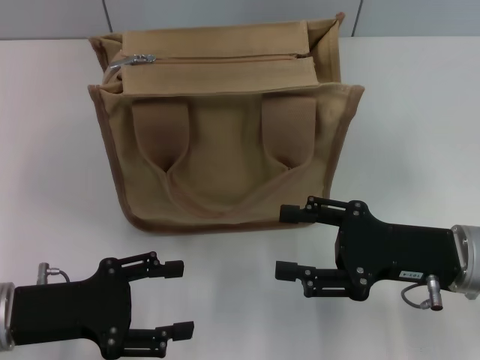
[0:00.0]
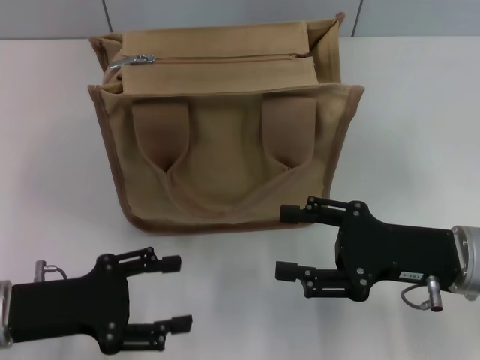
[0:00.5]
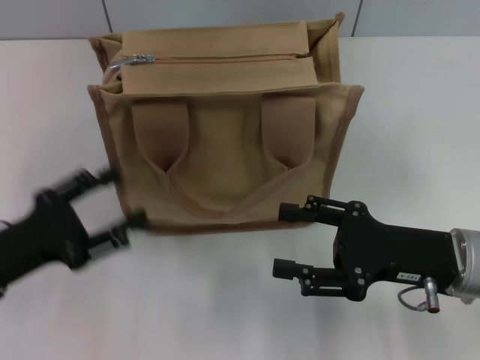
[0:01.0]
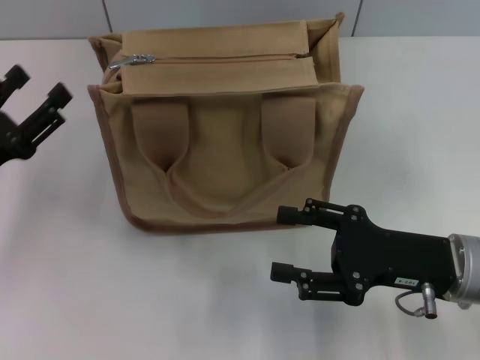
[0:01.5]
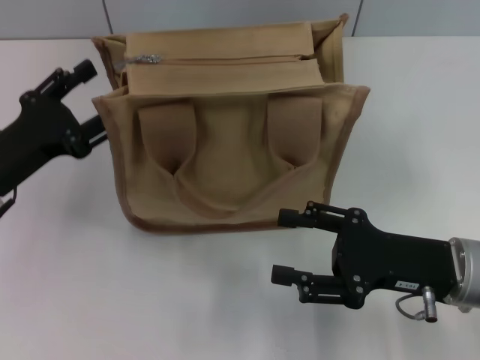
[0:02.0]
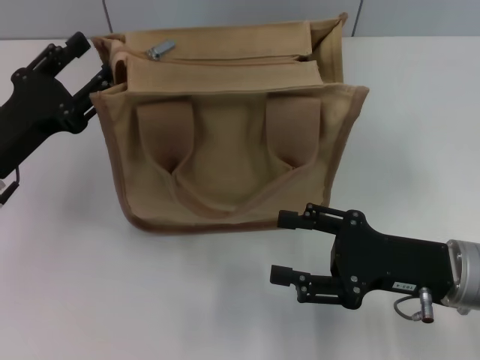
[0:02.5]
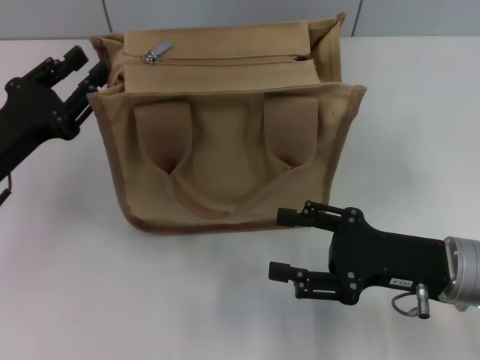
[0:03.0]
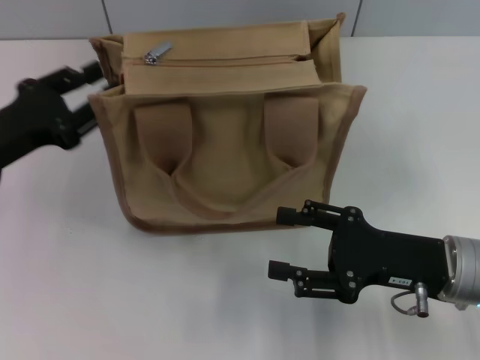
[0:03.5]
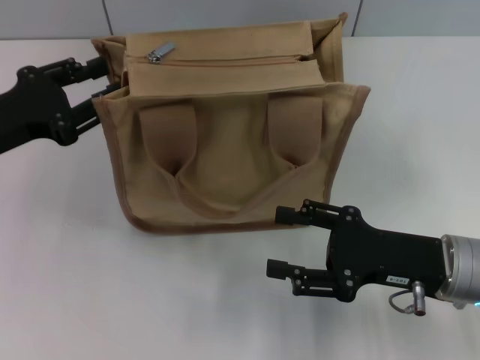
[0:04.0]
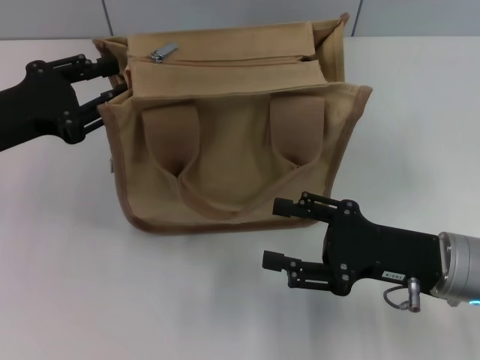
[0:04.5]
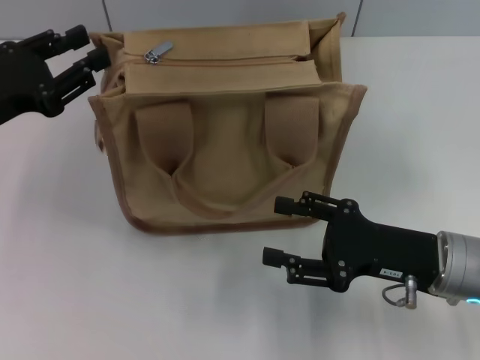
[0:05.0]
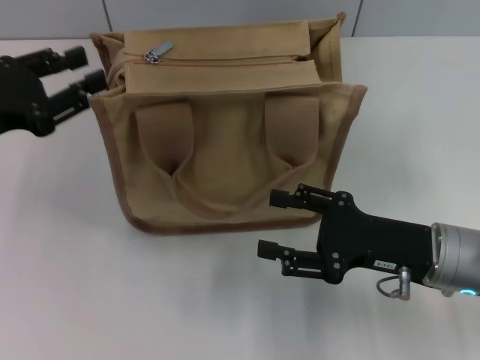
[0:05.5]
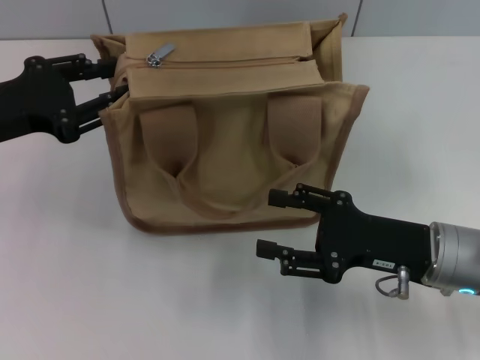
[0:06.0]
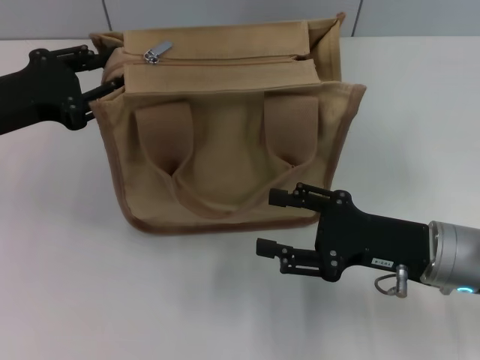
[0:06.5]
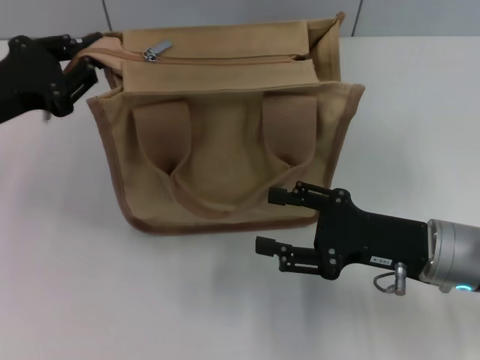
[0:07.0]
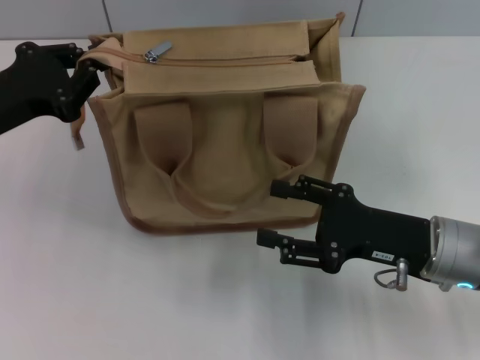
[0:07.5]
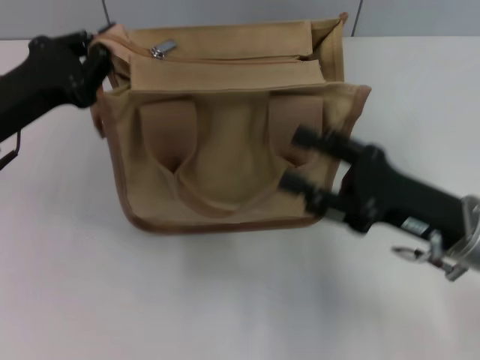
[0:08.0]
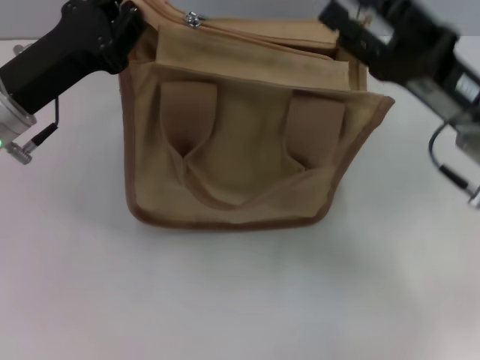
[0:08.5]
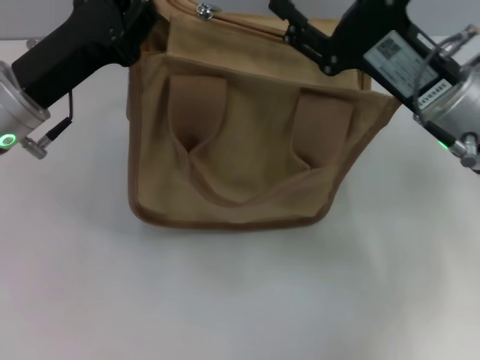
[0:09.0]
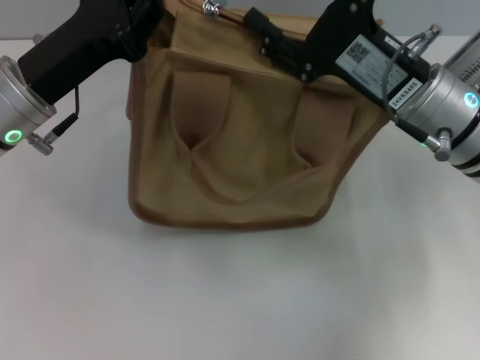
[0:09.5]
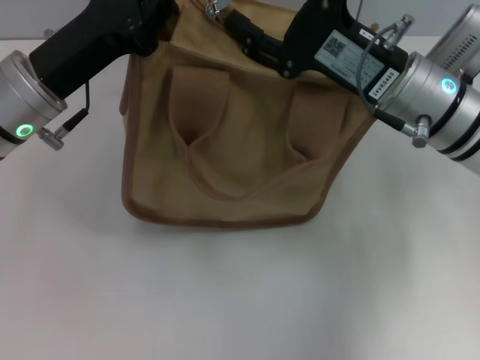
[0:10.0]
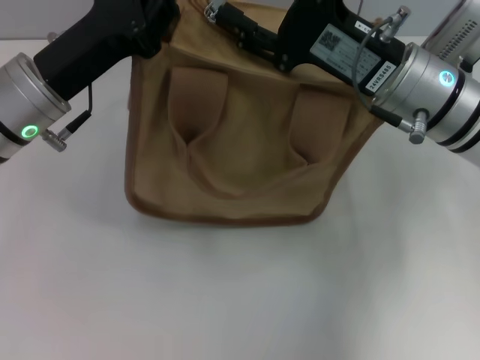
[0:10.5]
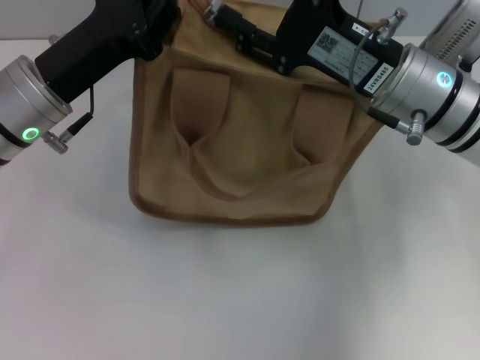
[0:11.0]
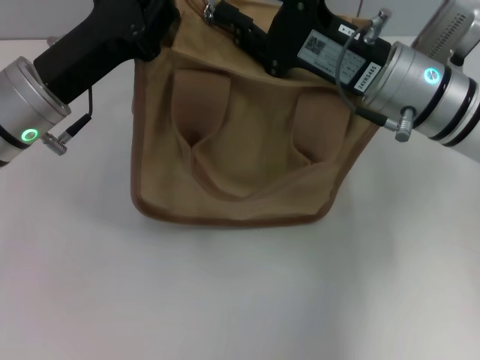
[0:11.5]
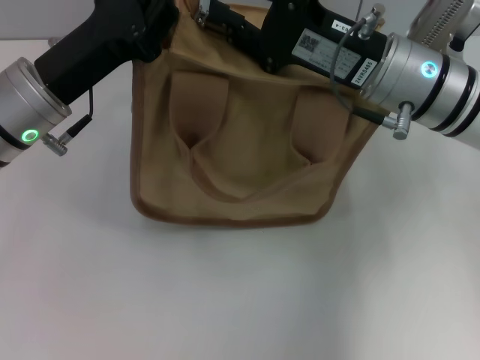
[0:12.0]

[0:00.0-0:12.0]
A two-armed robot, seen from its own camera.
0:00.0 to 0:02.0: The left gripper goes roughly 5 cm forward.
0:02.0 to 0:04.0: The left gripper moves roughly 5 cm.
0:04.0 to 0:06.0: The grippers make only small movements.
0:06.0 to 0:08.0: The left gripper closes its fingers.
0:08.0 to 0:10.0: The right gripper shifts roughly 10 cm forward, upward and to the left; the left gripper is displaced to the right by approximately 5 cm.
0:10.0 to 0:12.0: The right gripper closes.

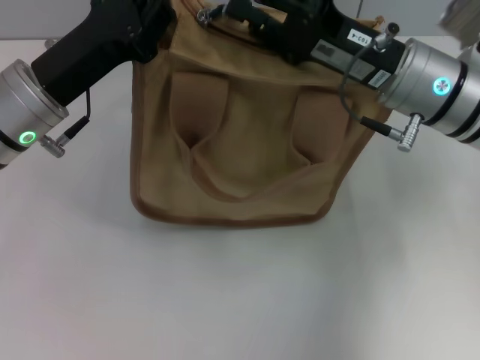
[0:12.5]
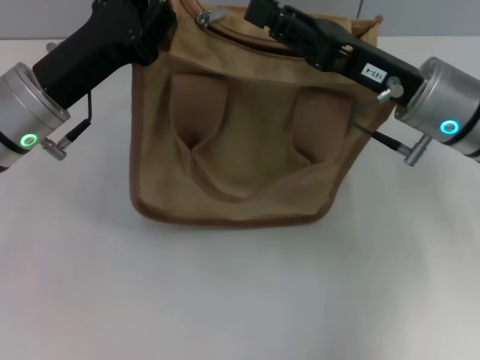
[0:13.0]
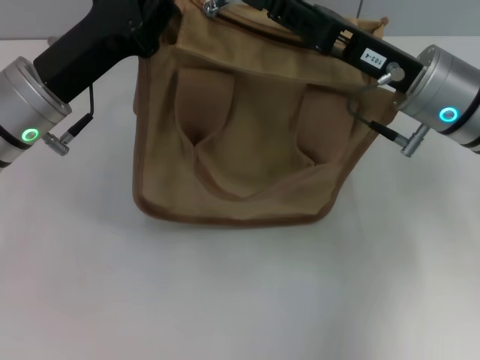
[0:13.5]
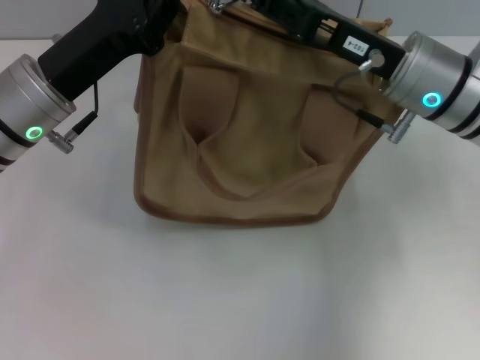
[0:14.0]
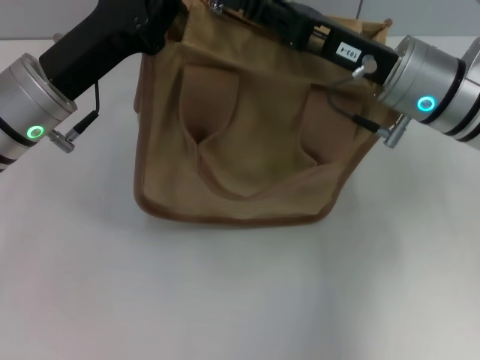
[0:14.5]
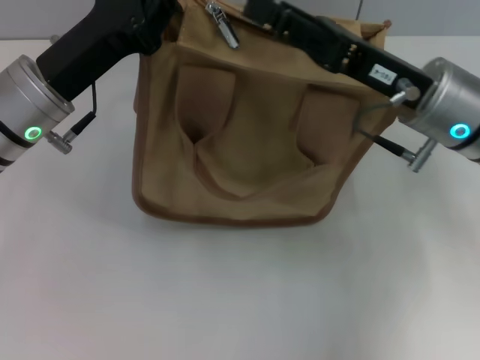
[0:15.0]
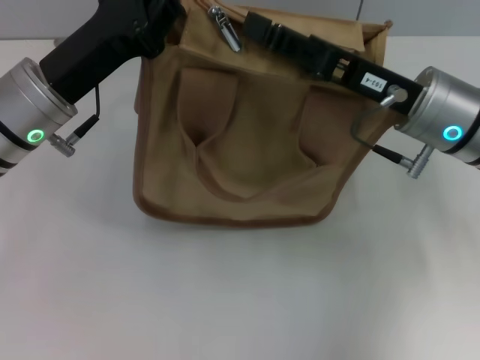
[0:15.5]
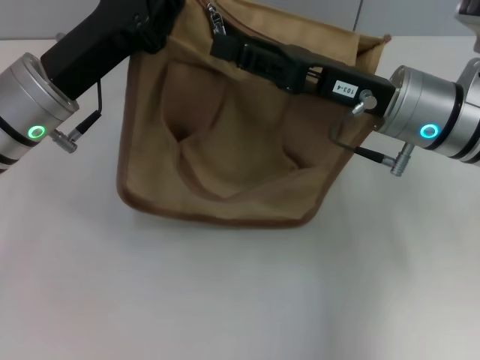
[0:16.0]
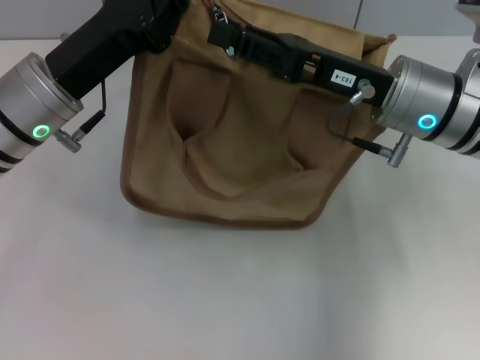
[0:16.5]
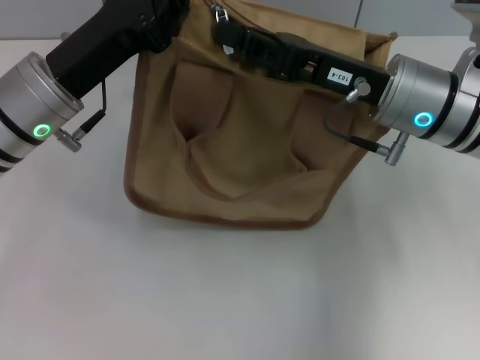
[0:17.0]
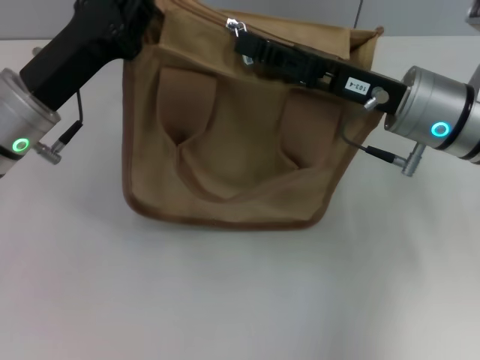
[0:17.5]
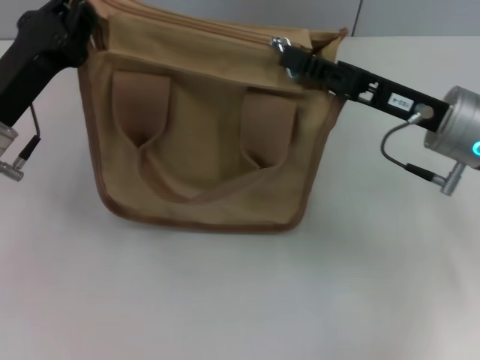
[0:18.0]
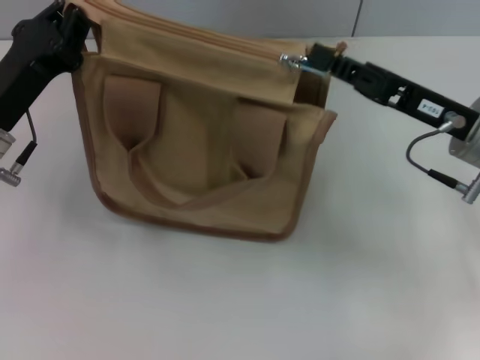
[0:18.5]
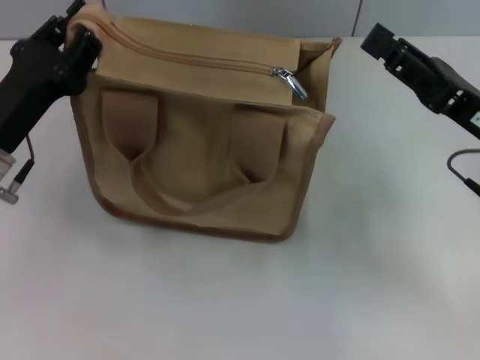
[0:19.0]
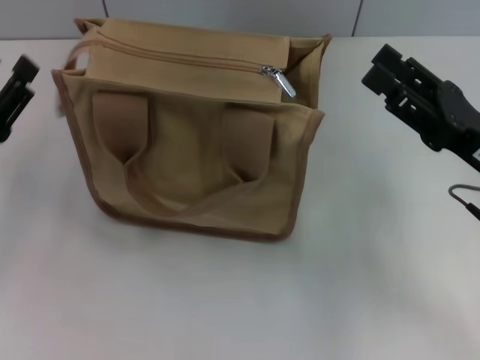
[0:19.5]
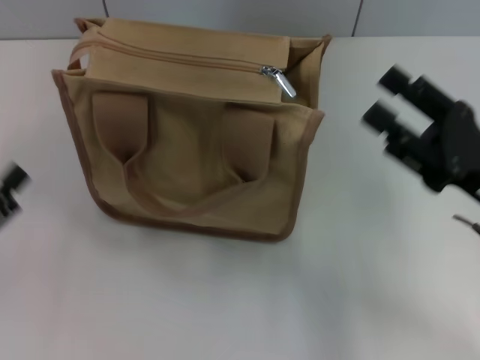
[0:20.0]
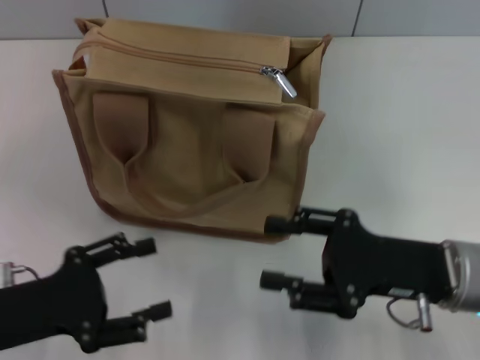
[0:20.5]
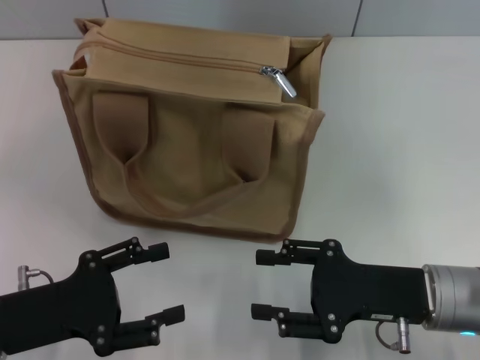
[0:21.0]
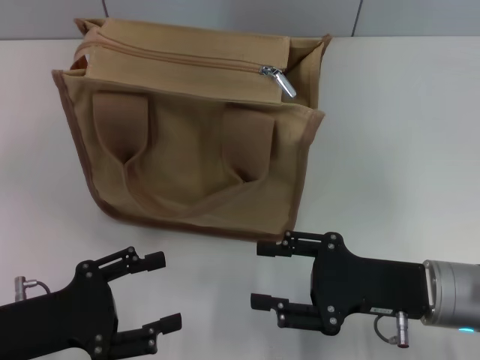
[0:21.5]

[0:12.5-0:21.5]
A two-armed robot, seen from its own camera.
Step, 0:12.5 to 0:18.5: Pull up the zipper with your right hand.
0:14.5 to 0:17.0: The right gripper closes its fingers.
0:17.0 to 0:19.5: The right gripper moves to the right and backward, roughly 15 cm, and opens. The left gripper travels to the left, backward and downward by about 15 cm, and opens.
0:19.5 to 0:21.5: The left gripper goes some 5 cm backward; the right gripper is displaced downward and to the left by about 10 cm.

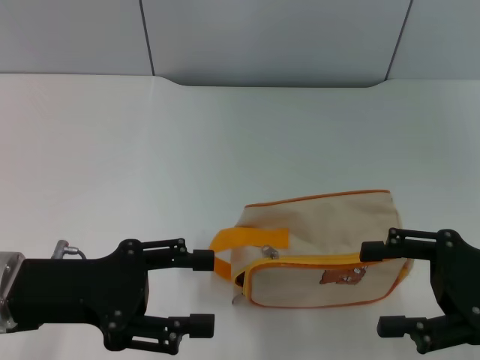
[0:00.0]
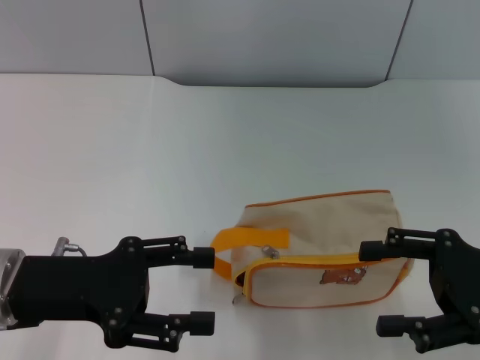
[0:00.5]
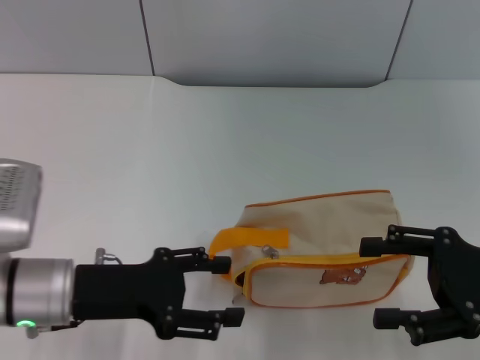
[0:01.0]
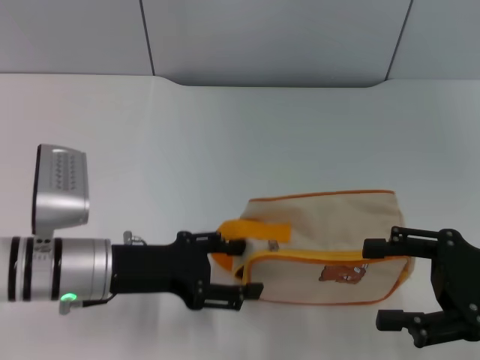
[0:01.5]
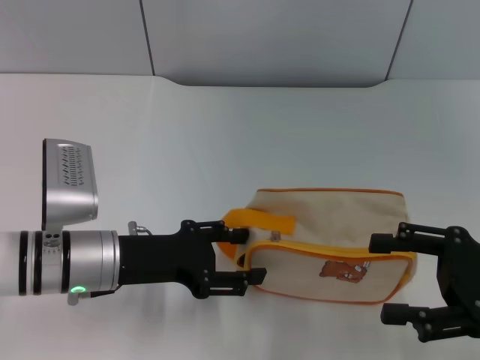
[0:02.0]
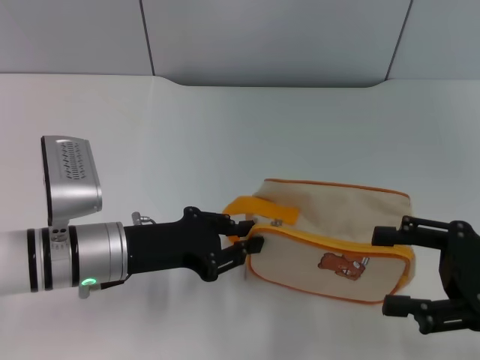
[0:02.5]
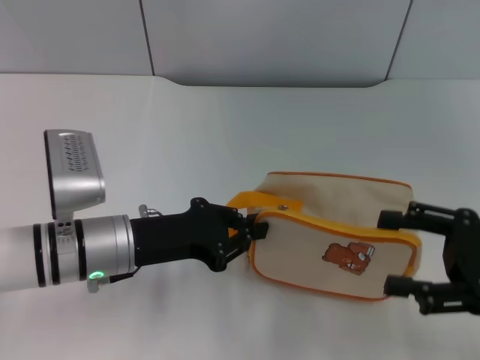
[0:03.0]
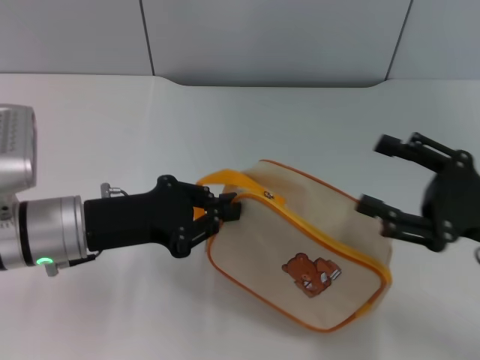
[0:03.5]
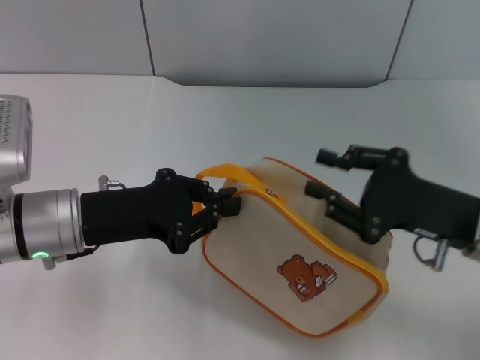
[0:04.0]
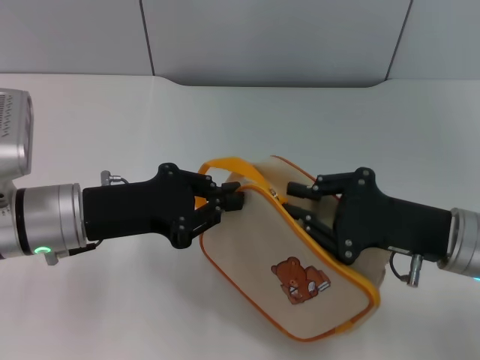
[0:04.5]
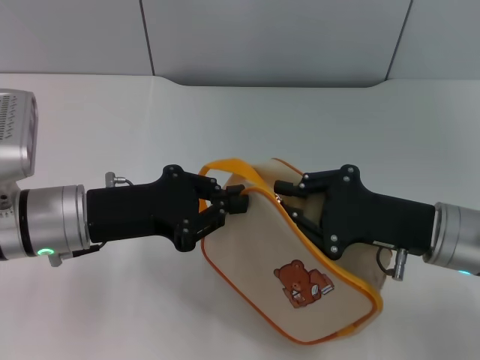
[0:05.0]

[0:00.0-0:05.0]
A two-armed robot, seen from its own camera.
Step, 0:00.0 to 0:03.5: Pick up the bag with left gripper.
0:00.0 to 0:02.5: The left gripper heads to the right, downward and forward, covering about 10 cm, and closes.
0:02.5 to 0:05.0: The right gripper is displaced to the left by approximately 10 cm, and closes its fingers. Meanwhile the left gripper shifts by about 5 cm, and closes up.
